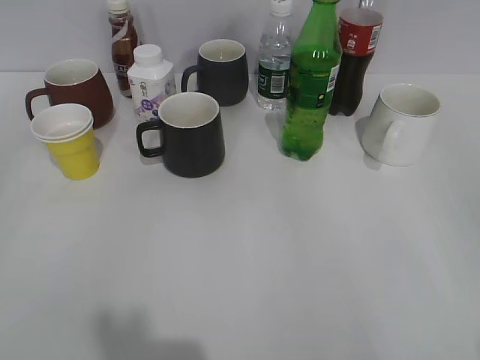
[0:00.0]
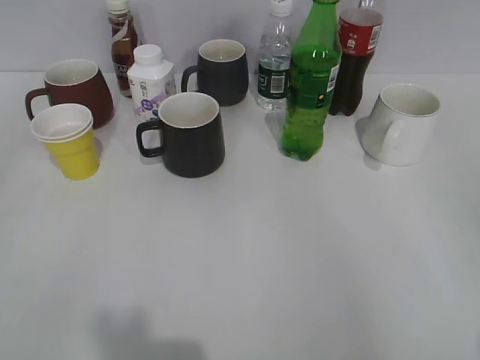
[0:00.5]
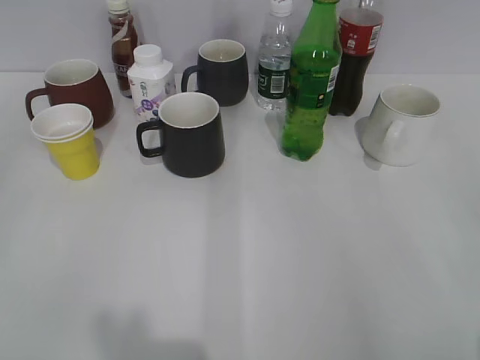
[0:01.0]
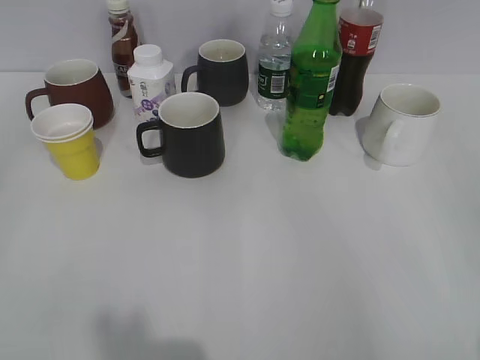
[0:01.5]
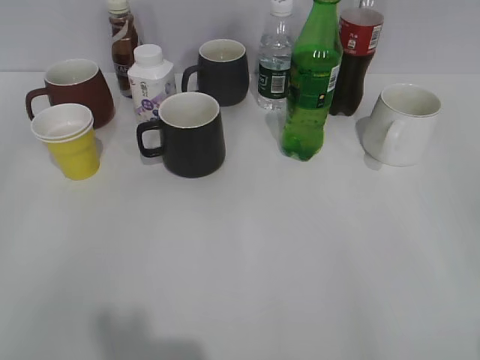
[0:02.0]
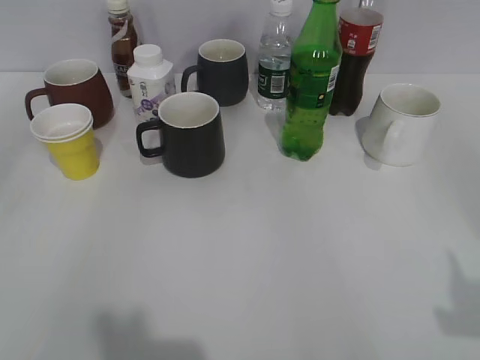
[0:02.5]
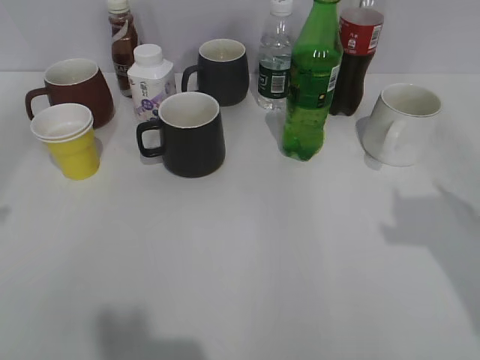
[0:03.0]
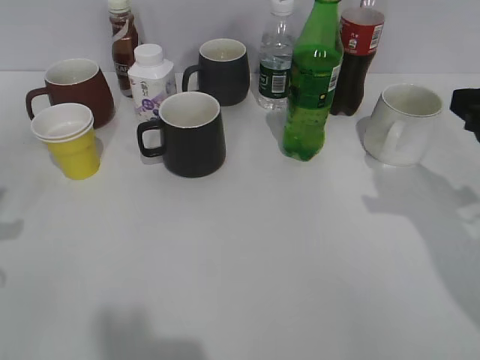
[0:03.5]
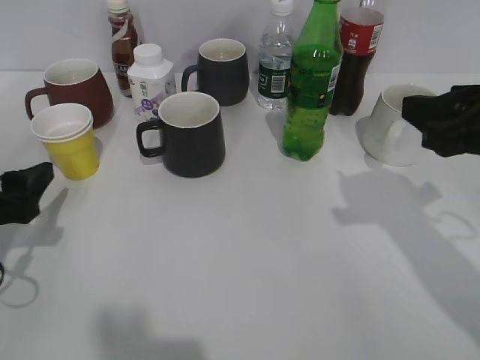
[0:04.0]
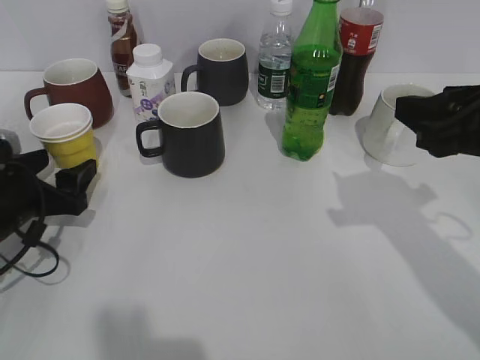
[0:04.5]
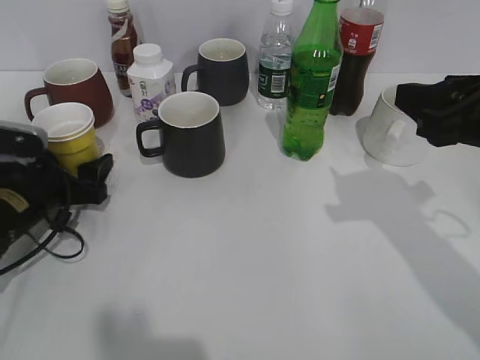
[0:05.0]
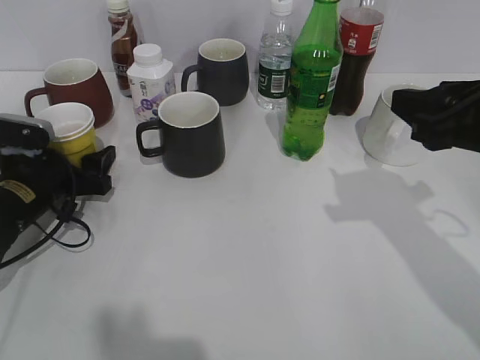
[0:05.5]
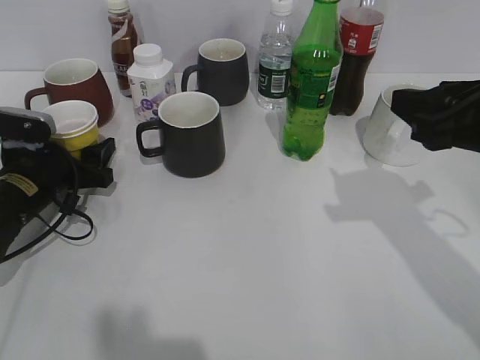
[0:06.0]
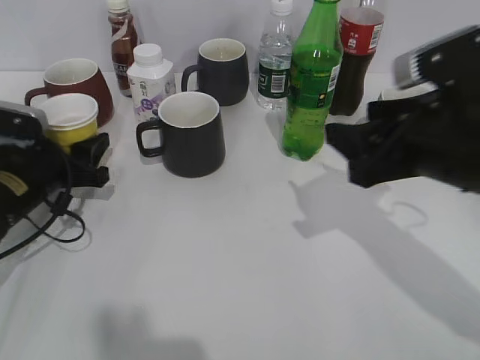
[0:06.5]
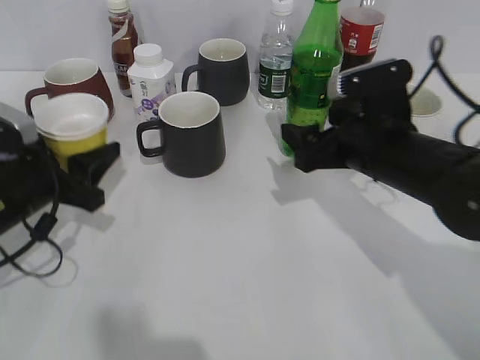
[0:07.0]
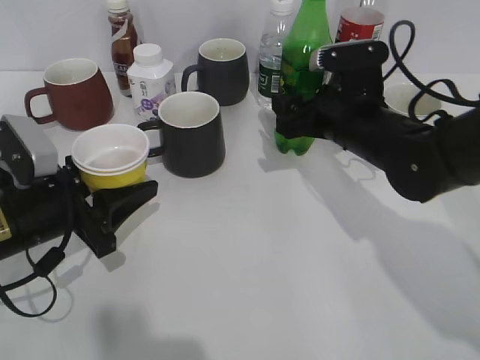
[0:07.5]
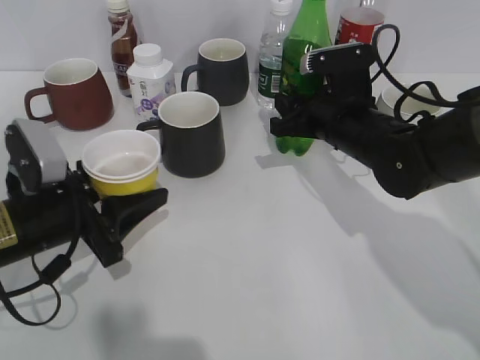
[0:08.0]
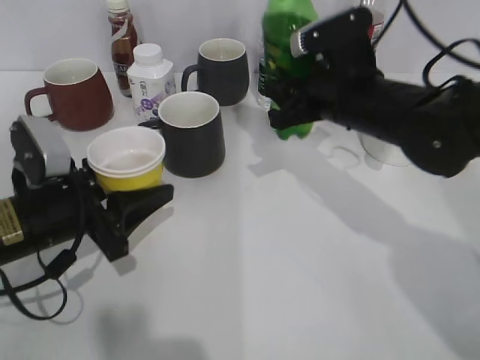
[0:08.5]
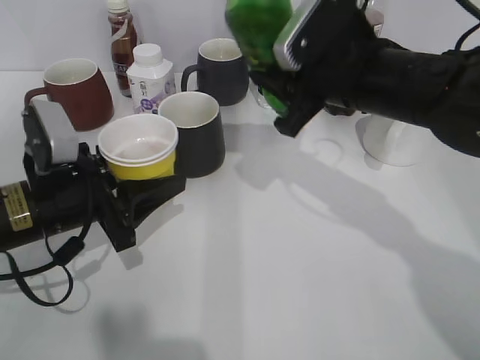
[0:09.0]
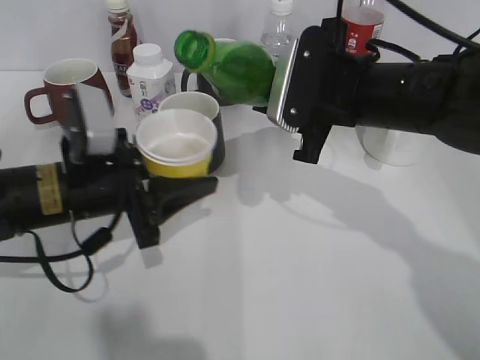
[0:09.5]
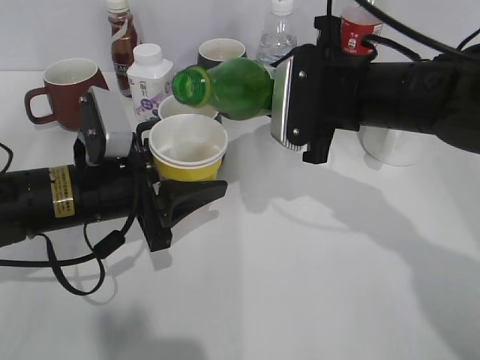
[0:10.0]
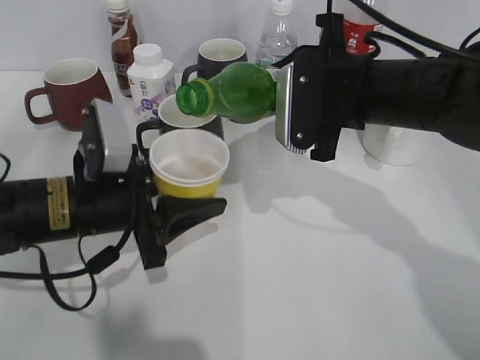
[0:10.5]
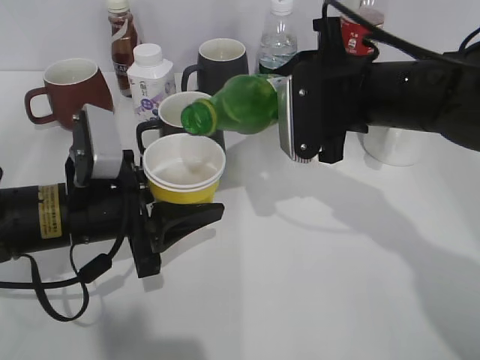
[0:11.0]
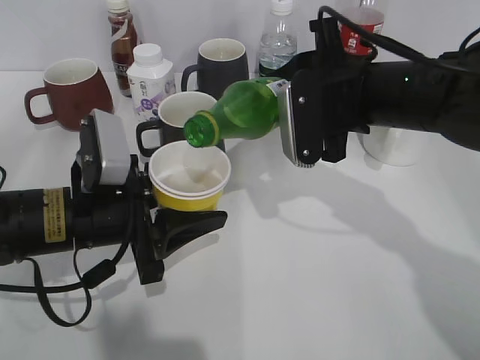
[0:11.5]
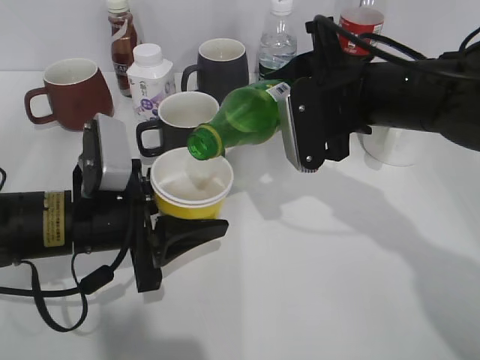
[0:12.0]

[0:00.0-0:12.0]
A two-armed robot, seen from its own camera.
Step, 0:02.5 to 0:06.0: Grasp the yellow paper cup with left gripper.
Step, 0:06.5 to 0:08.0: Grasp the bottle with sprite with right gripper.
0:02.0 to 0:04.0: The right gripper moves forward, approximately 20 cm; the left gripper heads forward and downward, covering about 25 cm, and opens its fingers.
0:04.0 to 0:06.0: The left gripper is displaced forward and downward by roughly 15 cm.
0:06.0 to 0:08.0: The right gripper heads forward, downward and to the left, covering some 20 cm, and opens, then closes again. Meanwhile the left gripper moves backward, roughly 10 cm.
0:08.0 to 0:10.0: The right gripper is displaced upward by some 10 cm. The left gripper goes roughly 5 cm to the right.

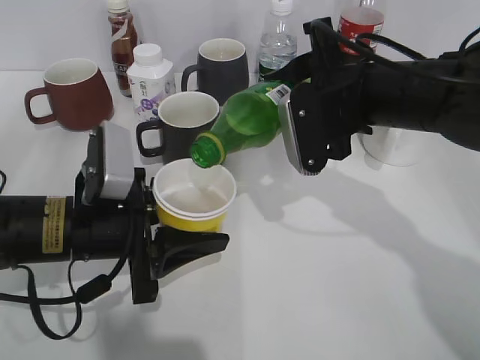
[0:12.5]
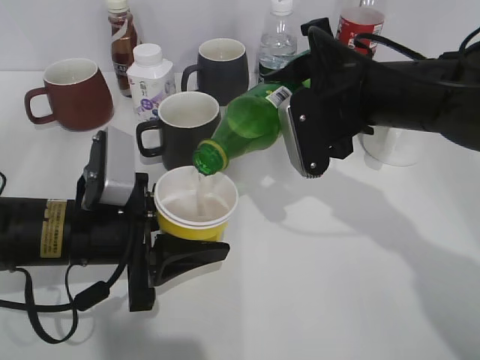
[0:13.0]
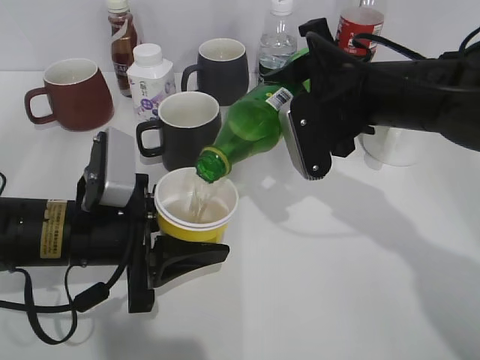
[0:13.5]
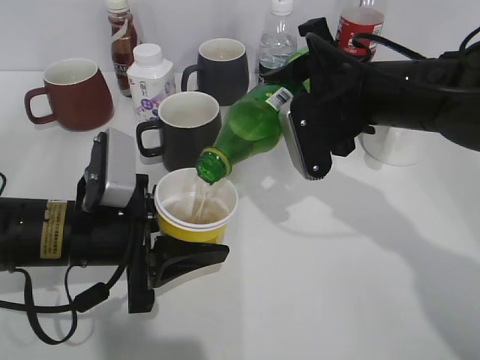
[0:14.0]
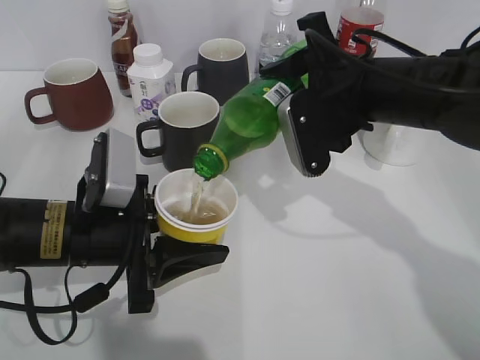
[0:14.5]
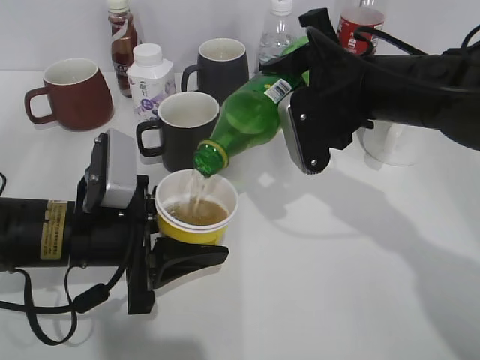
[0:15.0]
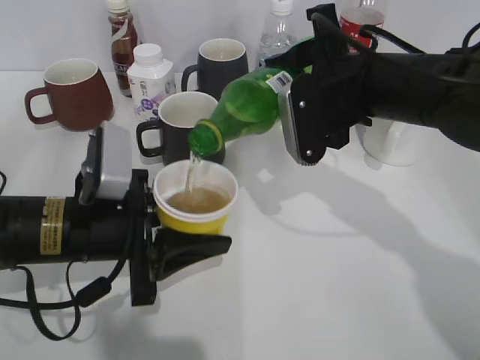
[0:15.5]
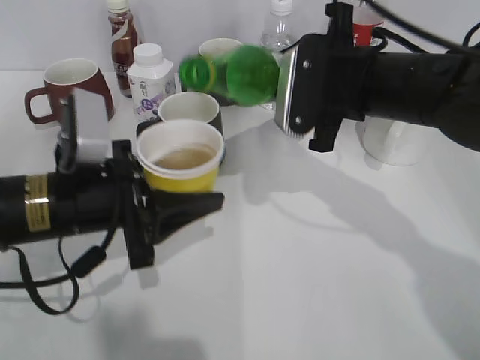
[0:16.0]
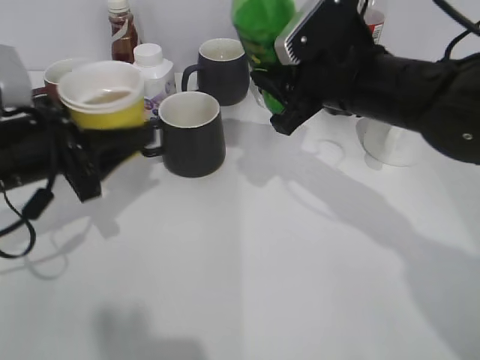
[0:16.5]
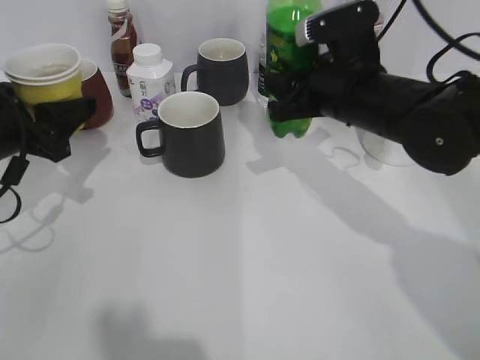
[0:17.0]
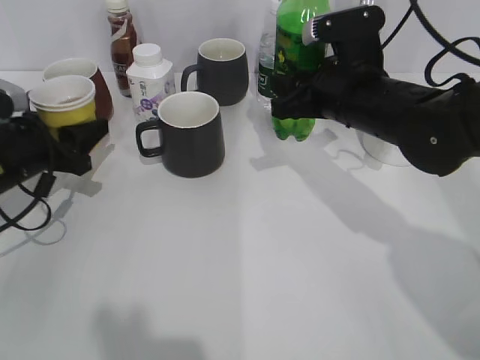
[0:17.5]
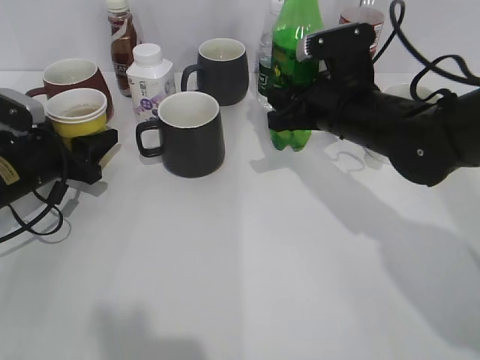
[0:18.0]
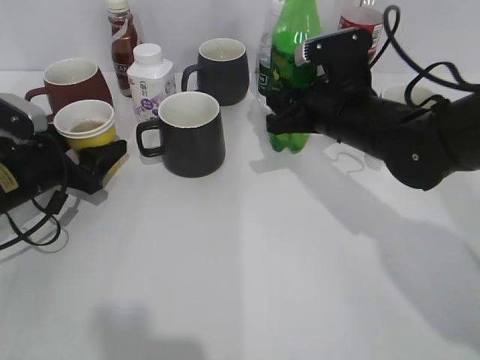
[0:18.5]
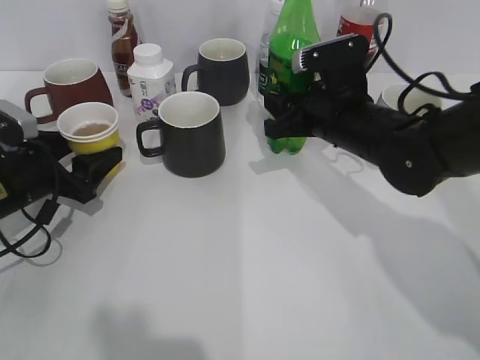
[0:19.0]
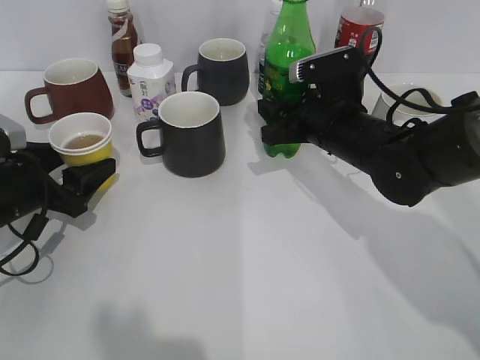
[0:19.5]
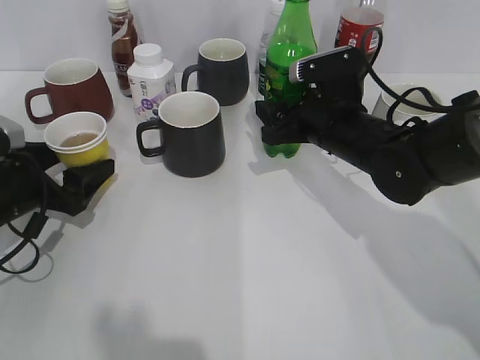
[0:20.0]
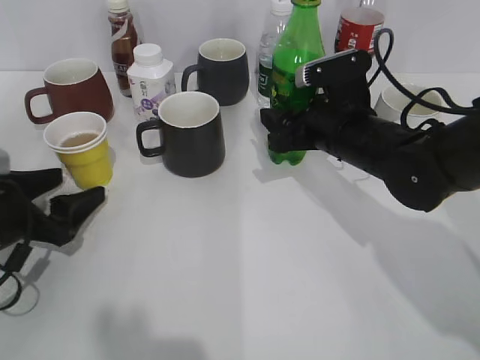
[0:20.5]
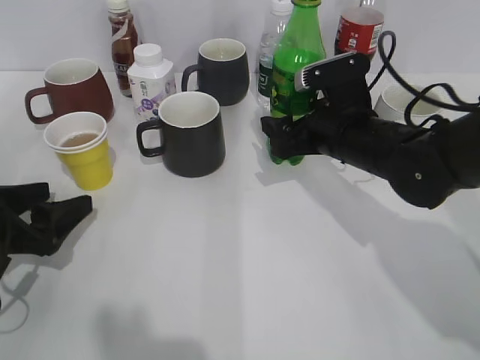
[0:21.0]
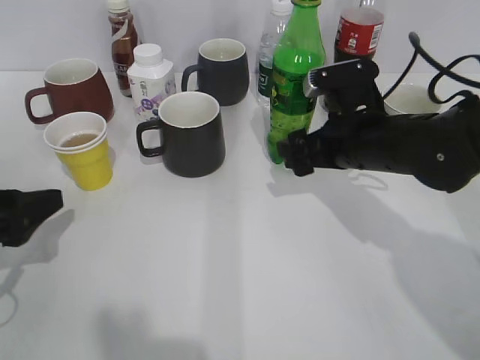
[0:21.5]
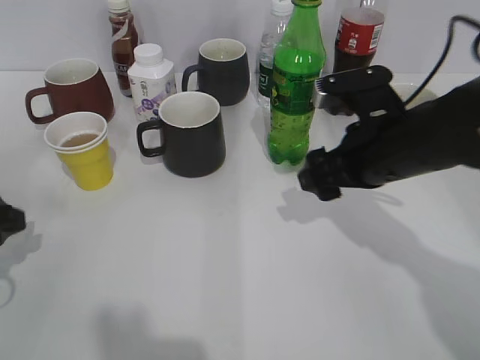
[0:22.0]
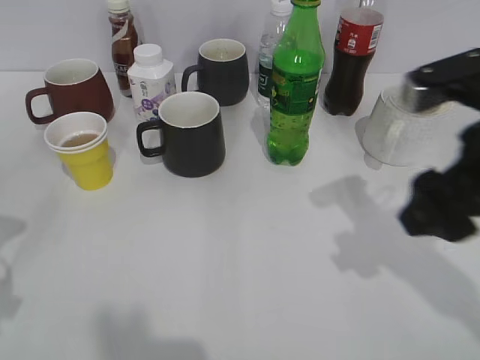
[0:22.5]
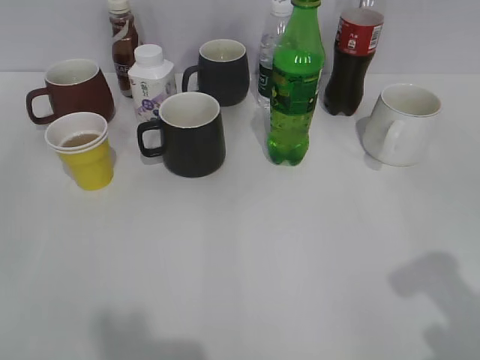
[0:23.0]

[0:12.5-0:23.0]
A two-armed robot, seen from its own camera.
Step, 0:12.5 to 0:15.5: Pour the sprite from bottle to cup with right gripper.
Step, 0:16.0 to 0:18.0: Place the yellow paper cup on the table with left gripper.
Step, 0:18.5 to 0:21.0: Place the sprite bottle on the table with right gripper.
0:12.5 to 0:14.5: The grippers stay close to where they were, moving slightly.
0:14.5 to 0:16.5: The left gripper travels to the left and upward by approximately 10 cm.
0:16.5 to 0:19.0: Both grippers move downward, about 5 cm. The left gripper opens.
0:19.0 to 0:21.0: The left gripper goes about 10 cm backward. The right gripper opens.
0:21.0 to 0:23.0: The right gripper shifts approximately 30 cm backward, upward and to the right. The left gripper travels backward and upward by approximately 25 cm.
